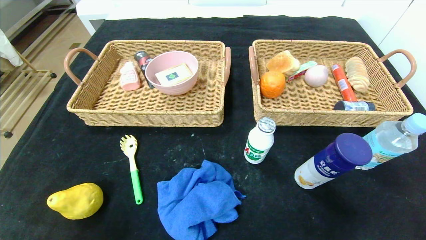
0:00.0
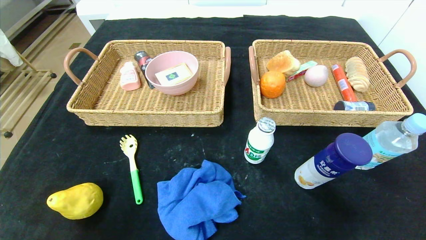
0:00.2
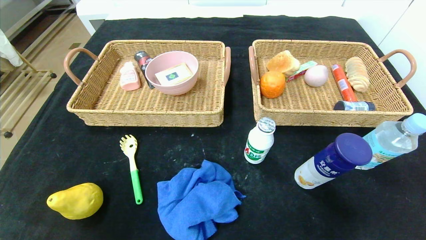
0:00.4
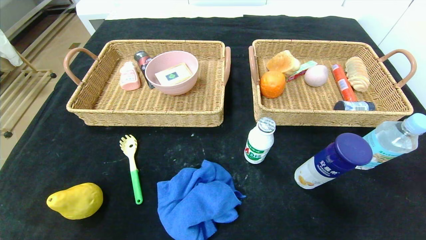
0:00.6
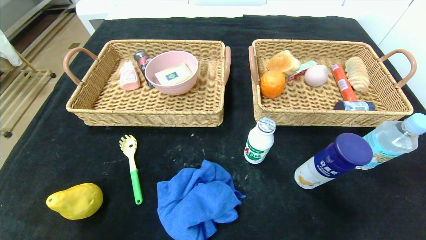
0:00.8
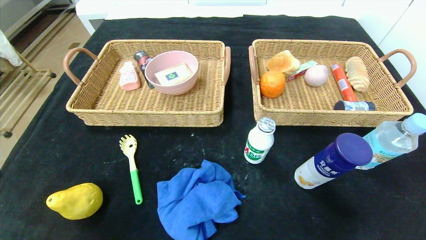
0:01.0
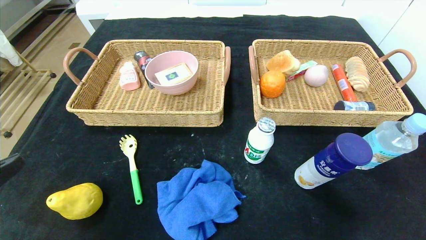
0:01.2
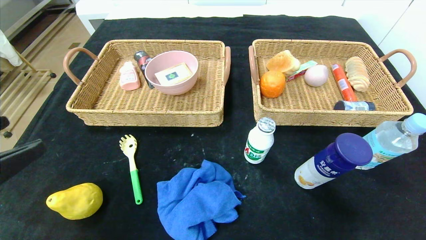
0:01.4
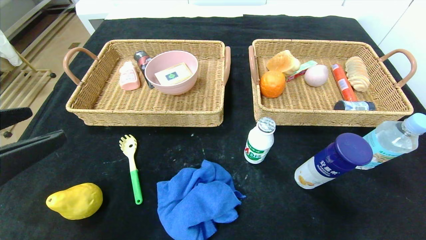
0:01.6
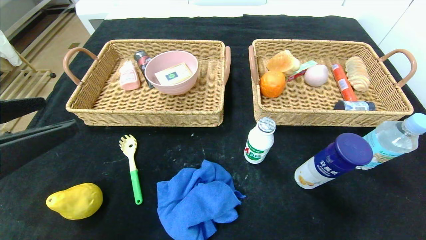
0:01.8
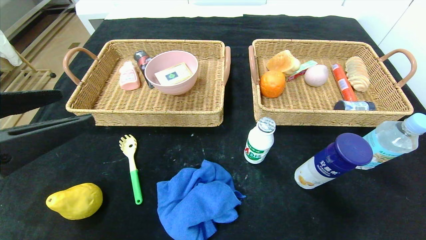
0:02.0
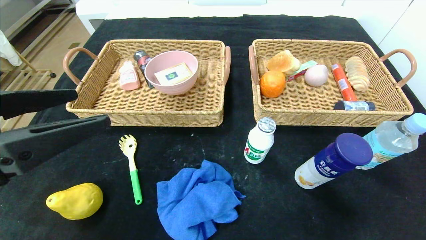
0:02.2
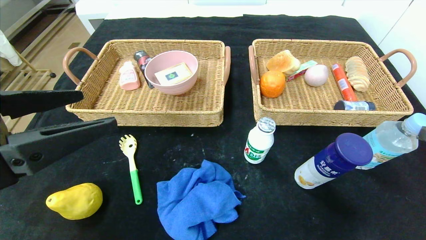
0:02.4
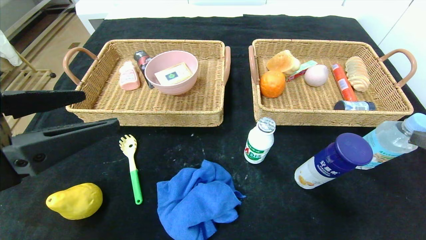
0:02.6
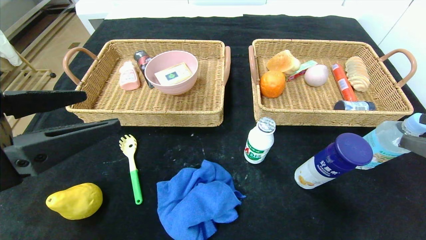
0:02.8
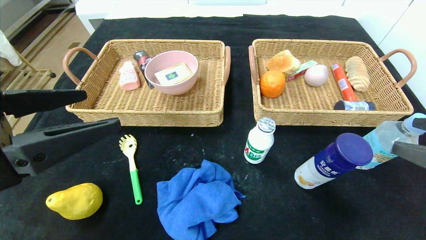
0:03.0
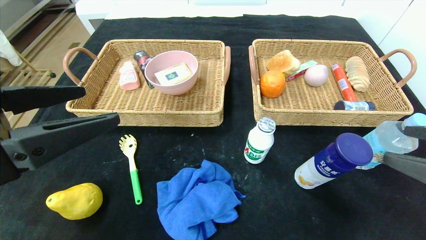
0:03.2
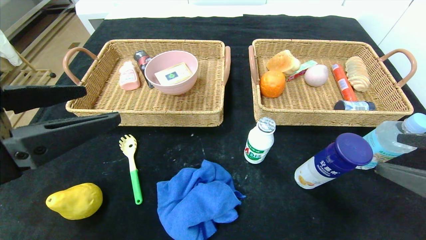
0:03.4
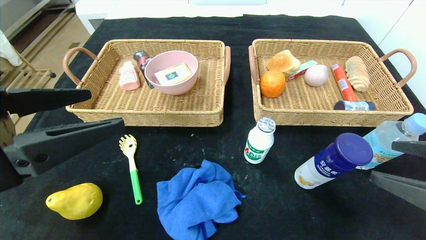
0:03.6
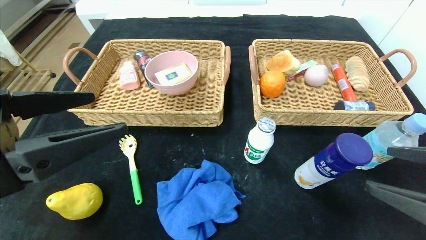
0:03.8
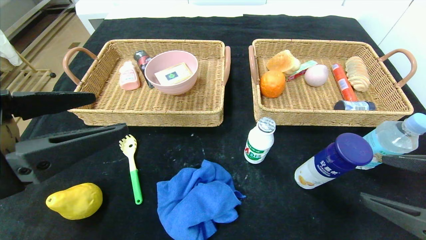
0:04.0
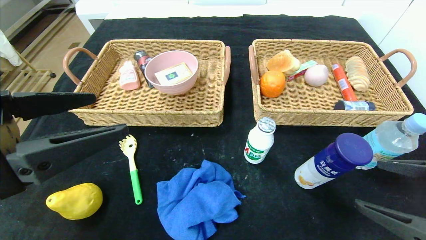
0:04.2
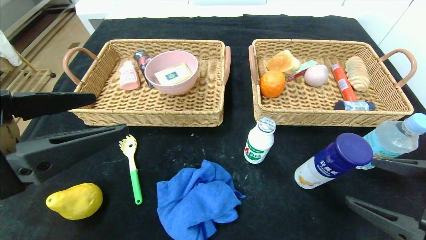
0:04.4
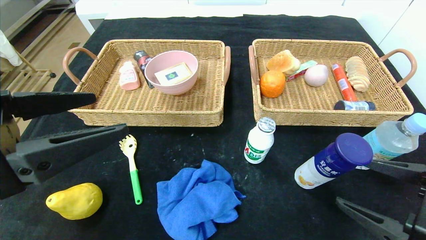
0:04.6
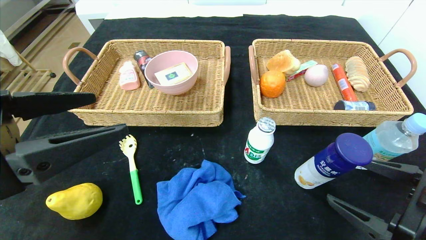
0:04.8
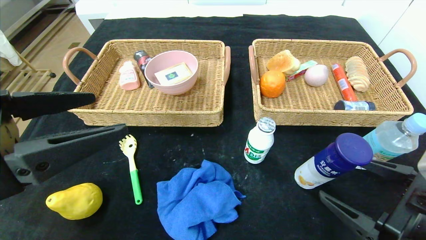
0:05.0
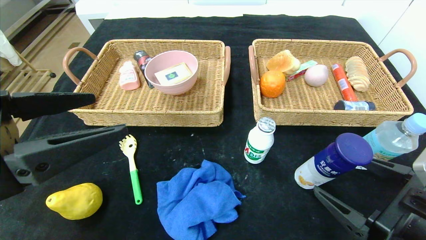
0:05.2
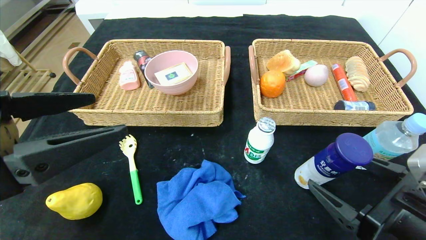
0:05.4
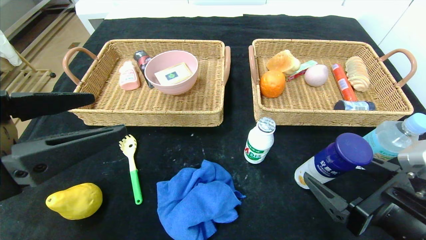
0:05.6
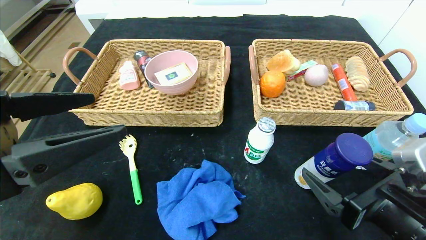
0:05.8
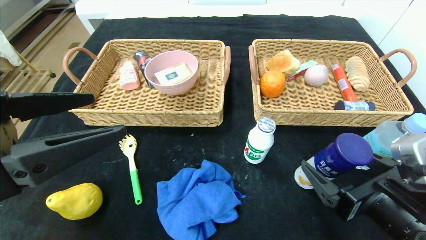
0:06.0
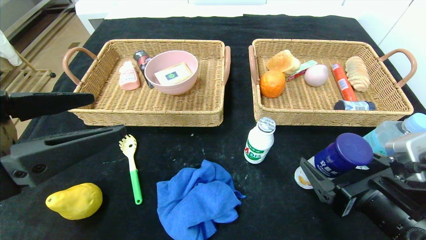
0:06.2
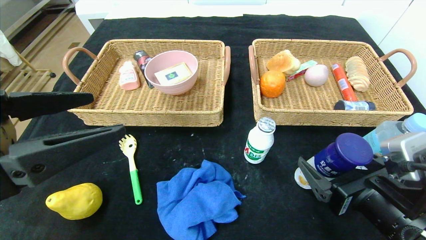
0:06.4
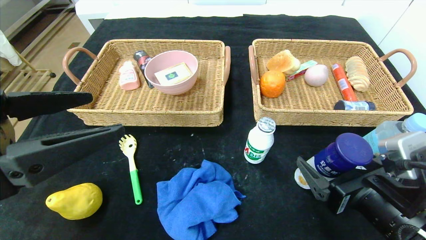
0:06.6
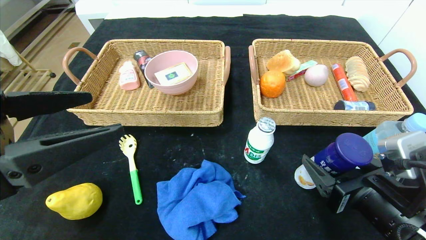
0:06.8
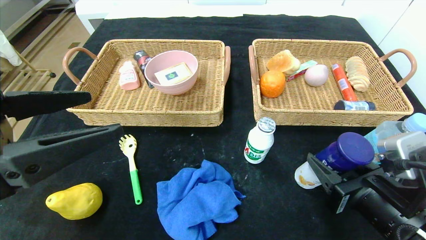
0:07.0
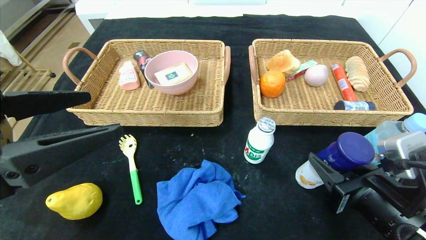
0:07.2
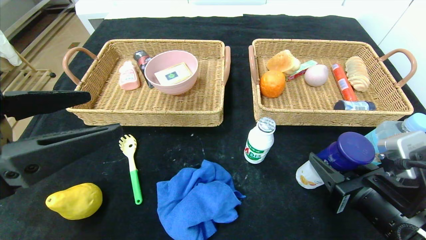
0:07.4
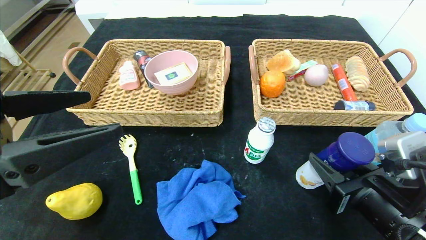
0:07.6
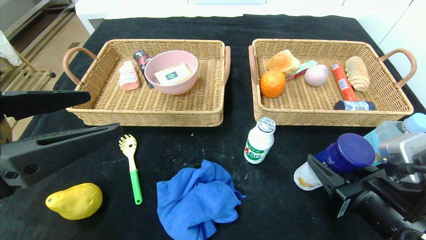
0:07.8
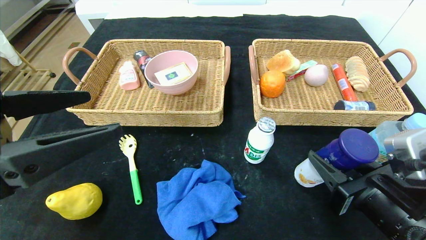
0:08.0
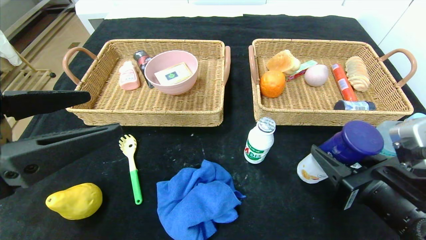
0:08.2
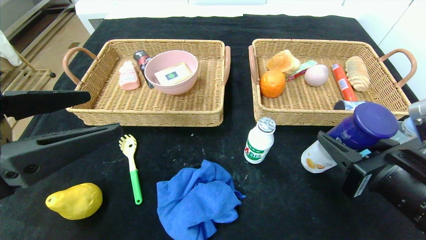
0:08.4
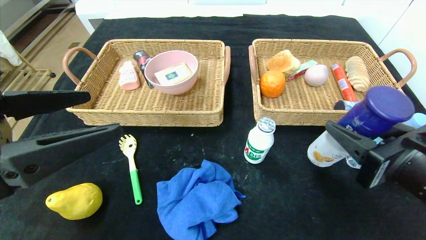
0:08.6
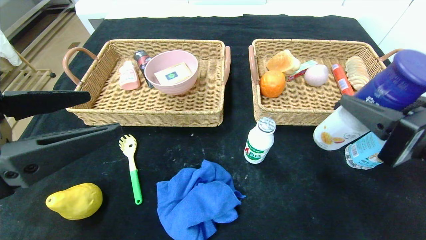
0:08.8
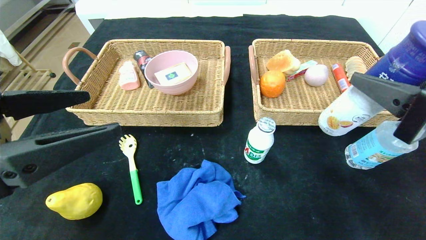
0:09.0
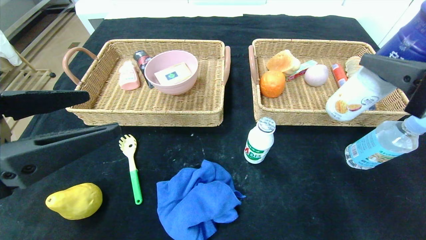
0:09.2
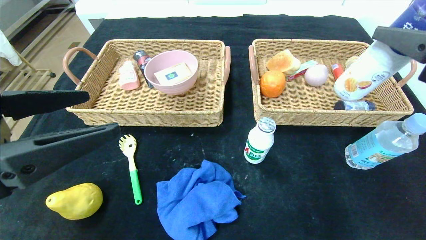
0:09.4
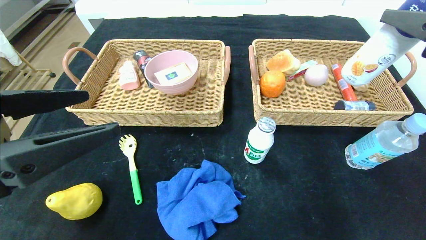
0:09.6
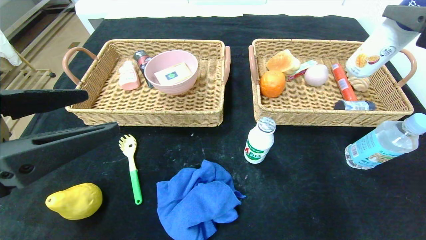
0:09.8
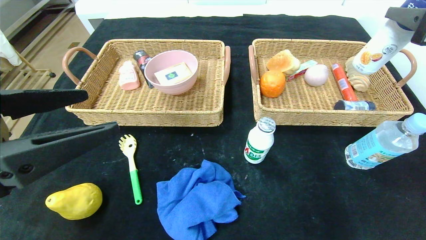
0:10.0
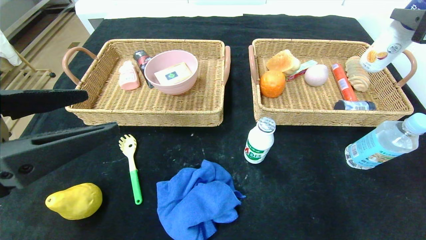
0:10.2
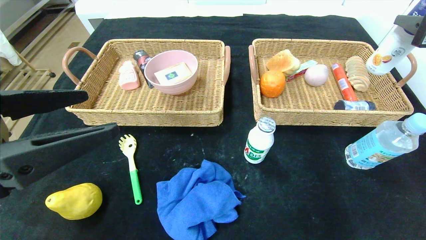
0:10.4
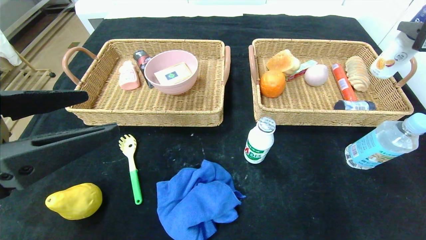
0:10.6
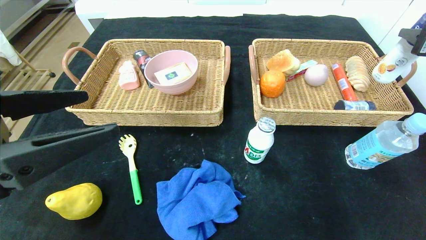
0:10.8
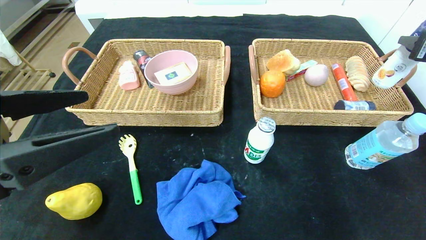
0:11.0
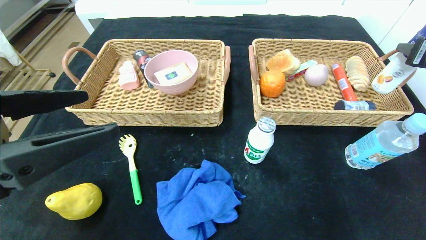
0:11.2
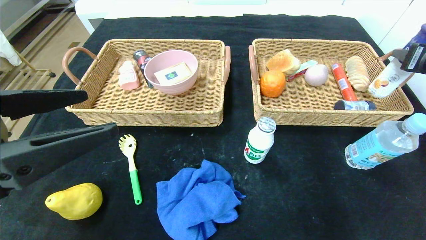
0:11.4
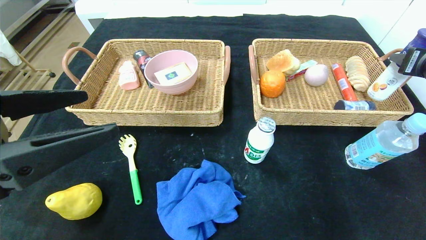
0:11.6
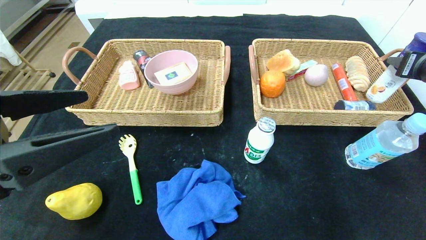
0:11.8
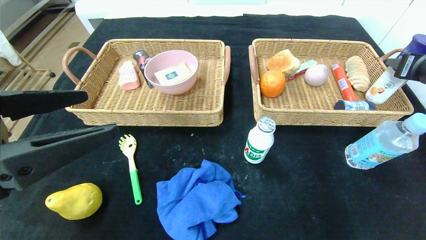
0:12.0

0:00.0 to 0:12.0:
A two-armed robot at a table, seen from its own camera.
0:00.0 to 0:01.6: Both grippers move upward and forward, some 20 cm.
0:01.6 to 0:03.0: The right gripper ends up roughly 5 cm from where it was.
0:03.0 to 0:04.4: The right gripper is displaced downward by approximately 5 cm.
0:04.4 to 0:06.0: The right gripper is displaced to the left by some 5 cm.
0:06.0 to 0:07.6: The right gripper closes up.
0:07.6 to 0:09.0: The right gripper is displaced upward by approximately 15 cm.
0:09.0 to 0:10.4: The right gripper is displaced forward, to the right and upward by roughly 15 cm.
0:10.4 to 0:12.0: The right gripper shifts about 10 cm forward, to the right and downward.

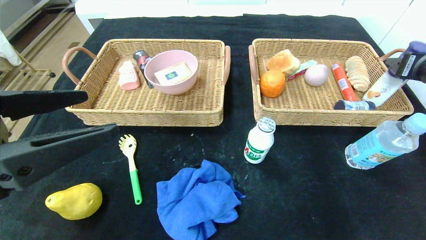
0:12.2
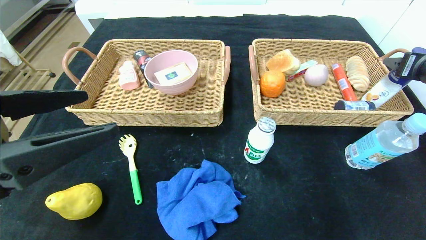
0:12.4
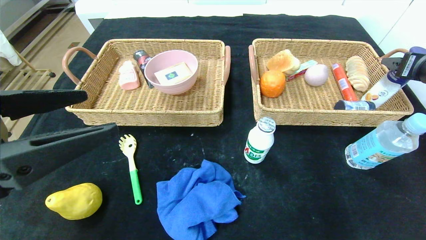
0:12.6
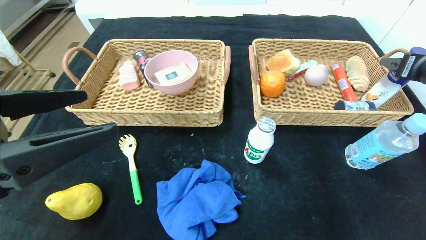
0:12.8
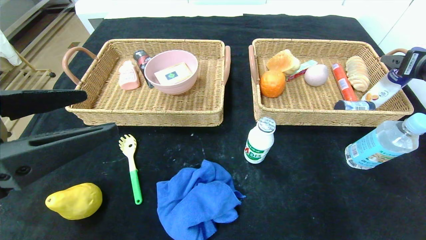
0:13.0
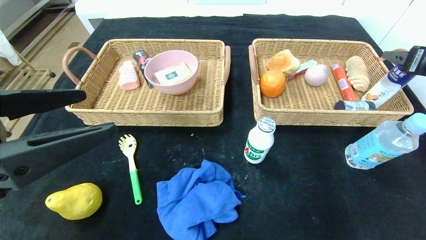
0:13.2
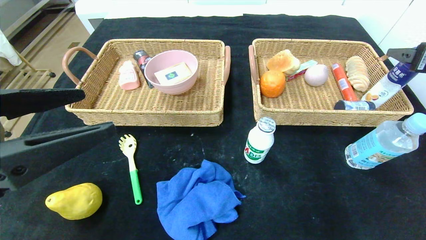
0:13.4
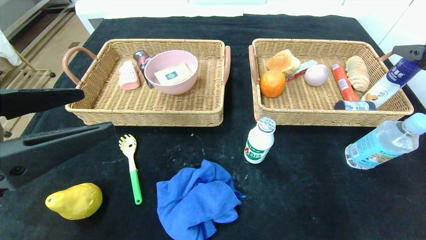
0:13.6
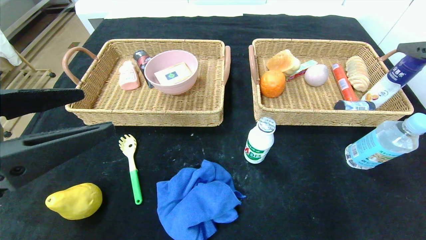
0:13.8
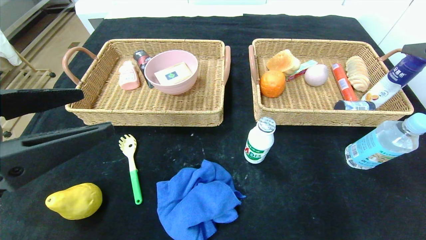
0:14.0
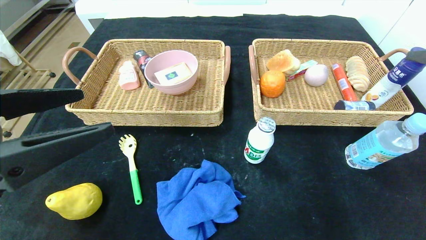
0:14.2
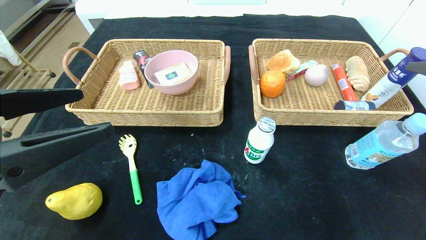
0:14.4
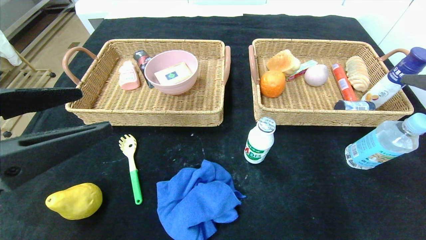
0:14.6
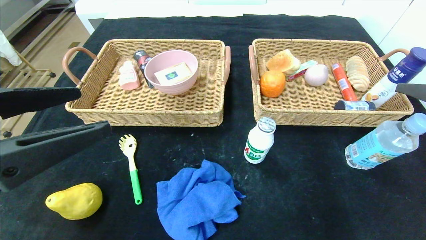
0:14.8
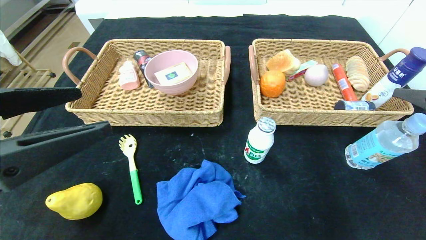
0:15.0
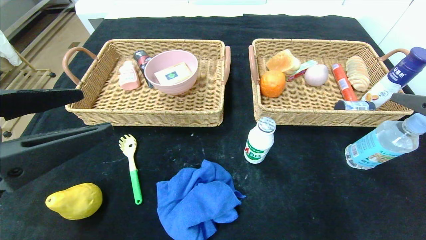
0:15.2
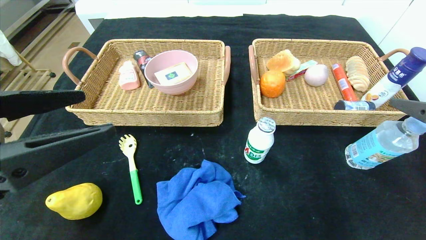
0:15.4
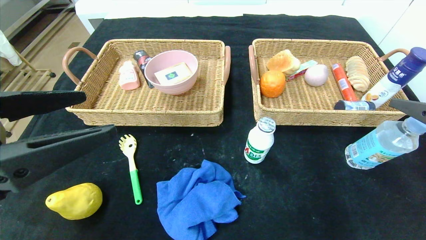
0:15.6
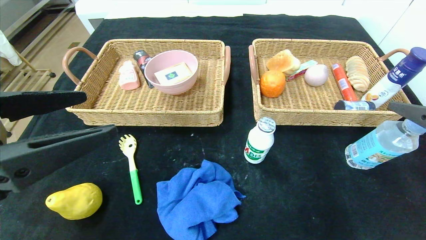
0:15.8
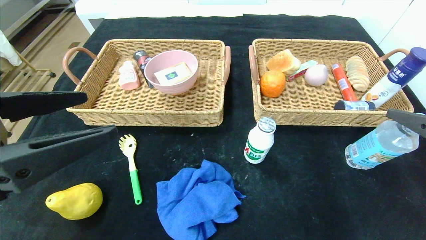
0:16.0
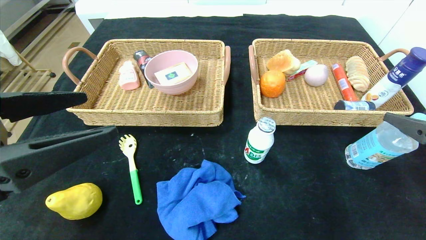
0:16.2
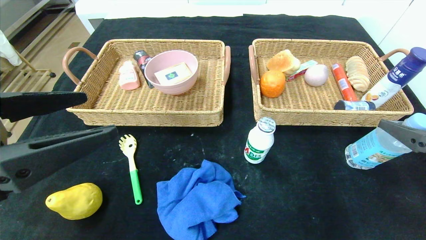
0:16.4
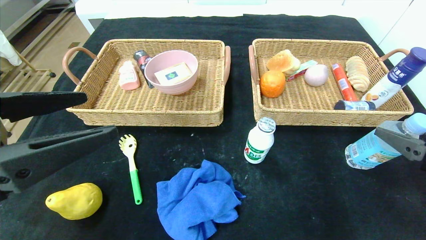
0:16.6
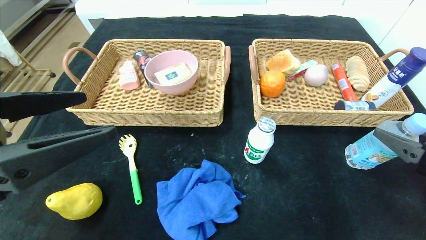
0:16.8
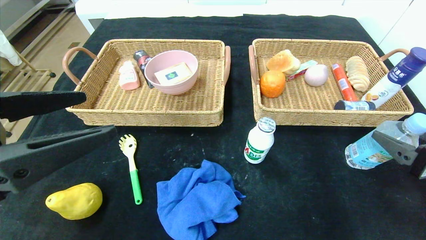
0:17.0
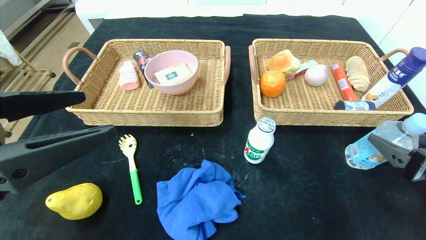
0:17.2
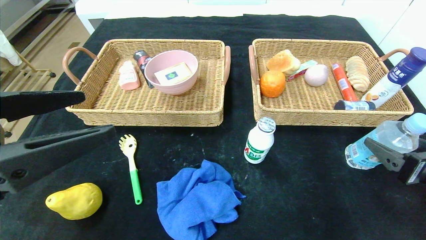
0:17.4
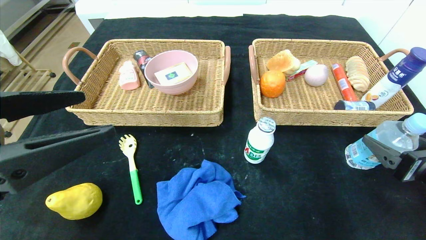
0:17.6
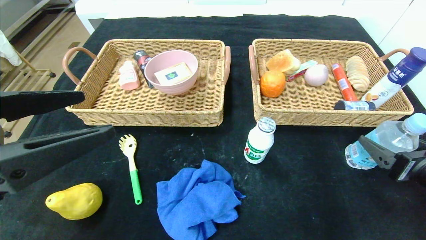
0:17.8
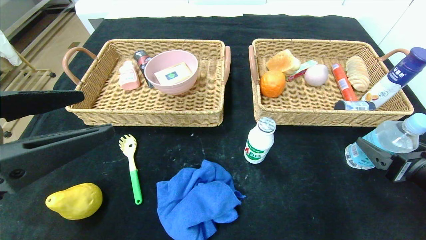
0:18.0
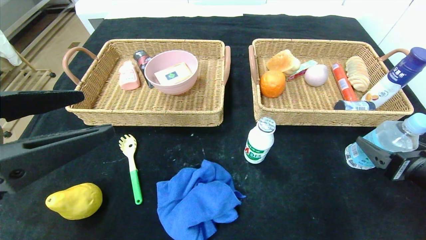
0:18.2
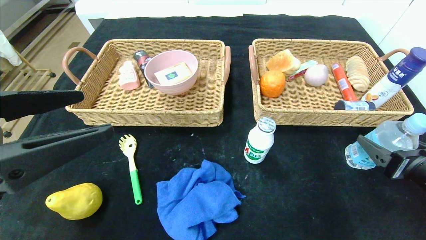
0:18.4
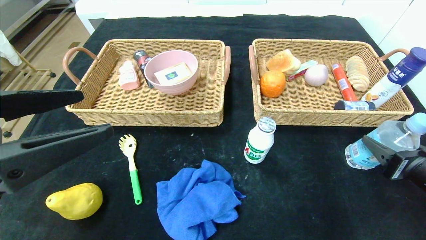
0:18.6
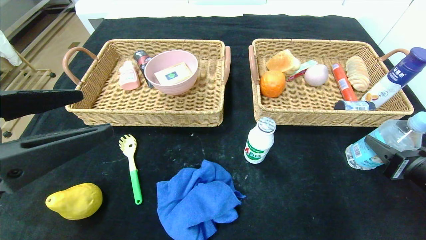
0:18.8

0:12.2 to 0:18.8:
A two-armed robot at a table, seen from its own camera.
0:12.2 to 0:13.8: The right gripper moves backward, about 5 cm, and opens.
0:13.8 to 0:15.4: The right gripper shifts approximately 10 cm backward and downward.
0:15.4 to 0:17.2: The right gripper is displaced downward by approximately 10 cm.
0:17.2 to 0:18.8: The right gripper closes up.
